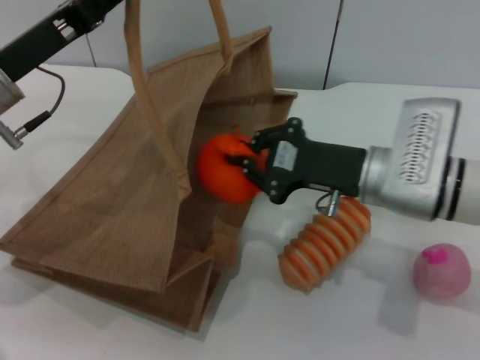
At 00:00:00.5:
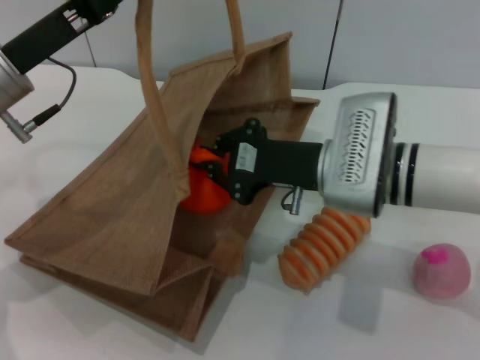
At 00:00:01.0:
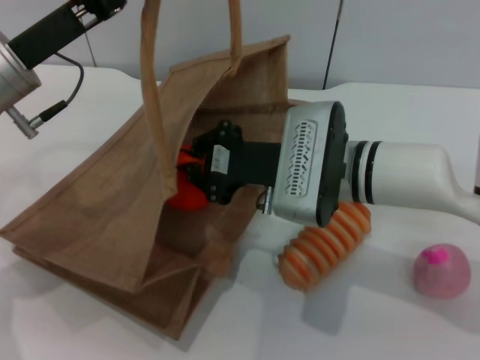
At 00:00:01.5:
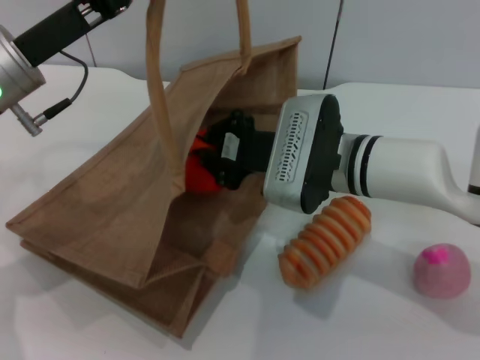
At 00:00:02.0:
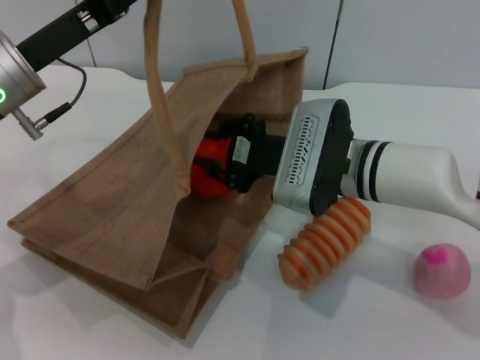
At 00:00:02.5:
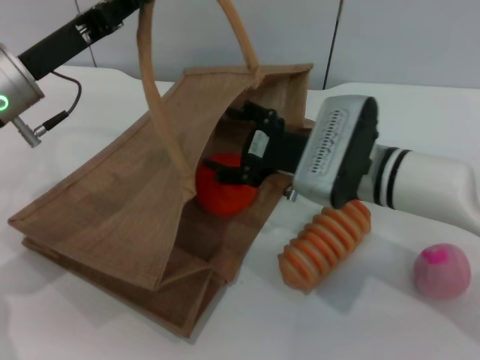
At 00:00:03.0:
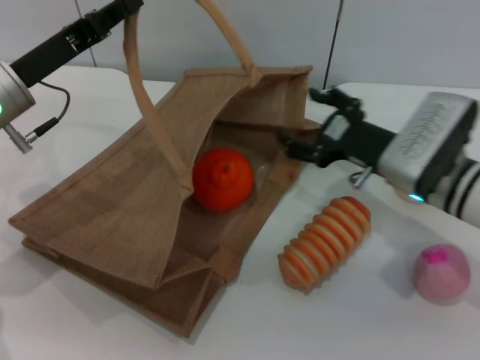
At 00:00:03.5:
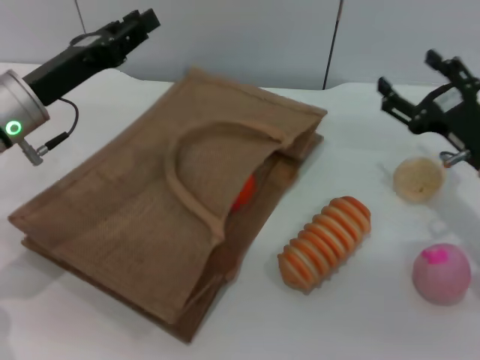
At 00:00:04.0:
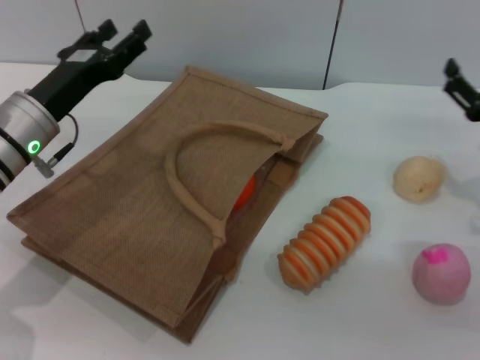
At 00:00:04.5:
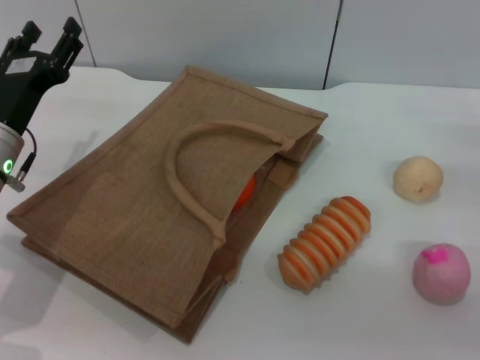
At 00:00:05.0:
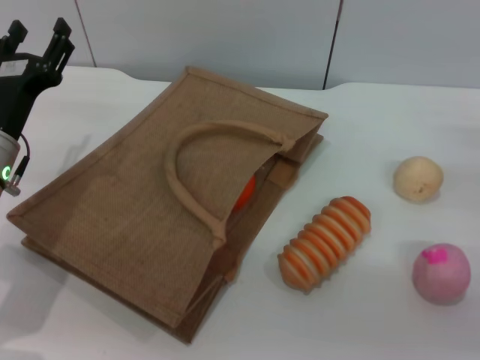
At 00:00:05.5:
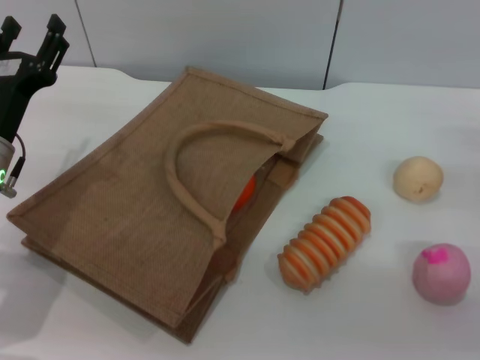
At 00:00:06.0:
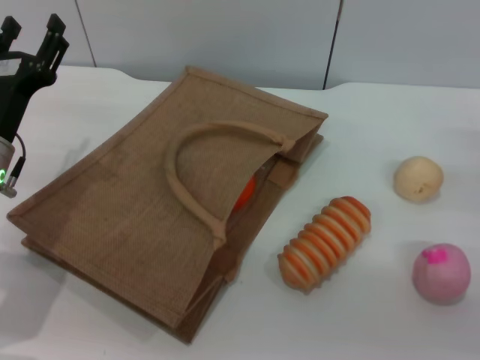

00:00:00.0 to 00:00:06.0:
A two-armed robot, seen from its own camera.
Task of the whole recording: pick up the orange from the table and place it in the brown handbag.
Step, 00:00:00.0 to 00:00:03.0: Place the orange into the woven bag with the right gripper.
Step, 00:00:03.5 to 00:00:04.5: Lower the woven bag with the left gripper to close it.
00:00:00.0 to 00:00:02.0: The right gripper shifts some 5 cm to the left.
00:00:02.0 to 00:00:04.0: The right gripper is displaced to the right by about 20 cm, and opens, while the left gripper goes about 5 cm downward, and opens up.
00:00:04.0 to 00:00:06.0: The right gripper ends up roughly 5 cm from where it was.
